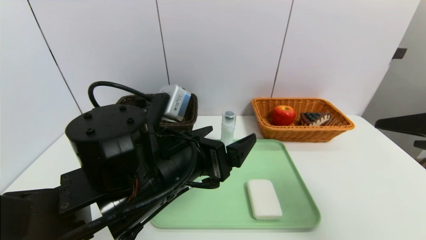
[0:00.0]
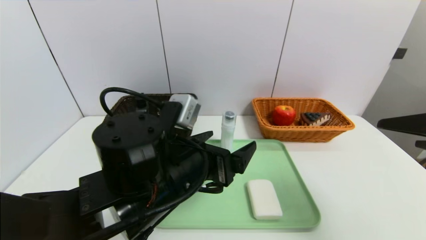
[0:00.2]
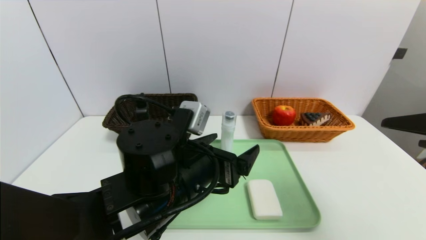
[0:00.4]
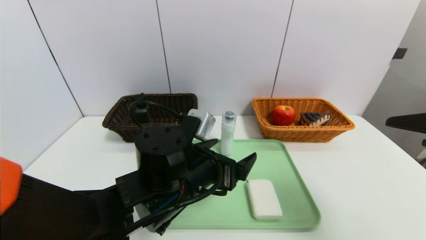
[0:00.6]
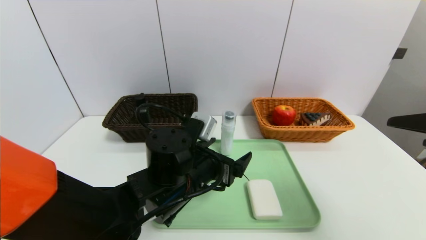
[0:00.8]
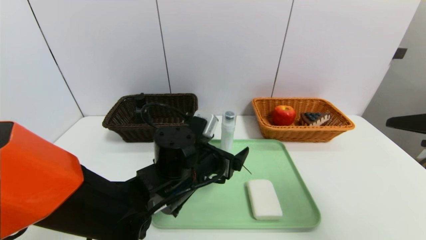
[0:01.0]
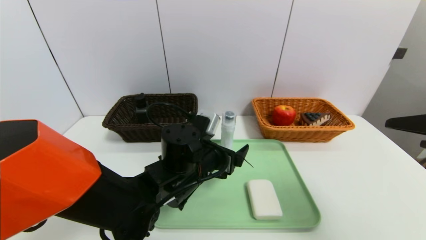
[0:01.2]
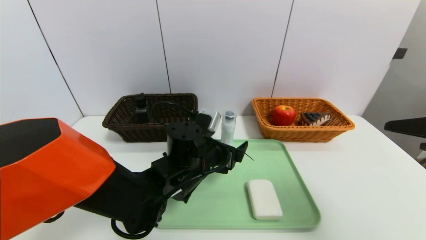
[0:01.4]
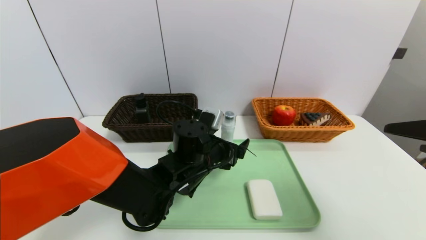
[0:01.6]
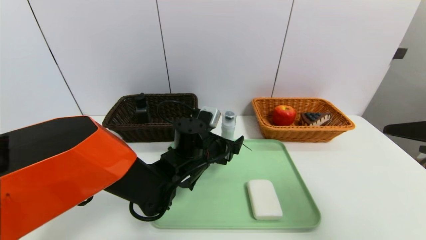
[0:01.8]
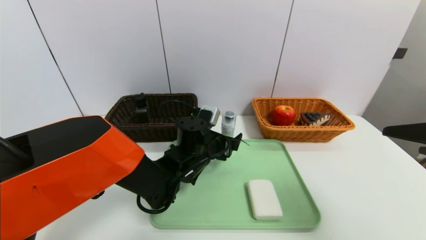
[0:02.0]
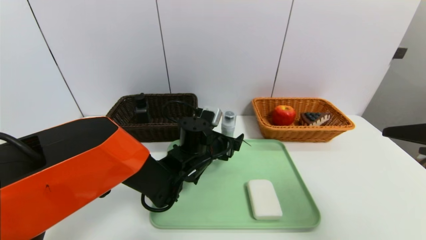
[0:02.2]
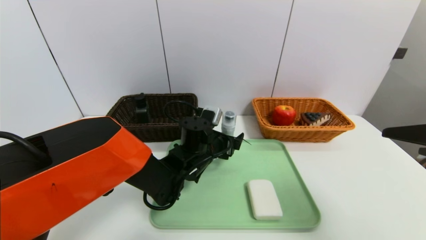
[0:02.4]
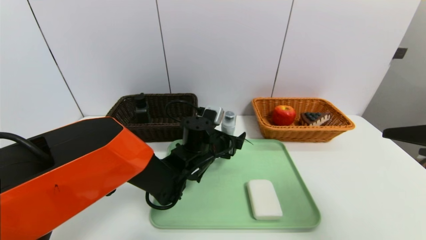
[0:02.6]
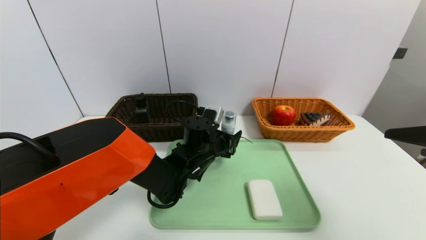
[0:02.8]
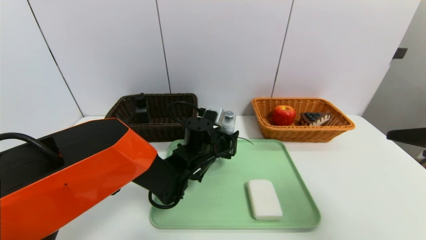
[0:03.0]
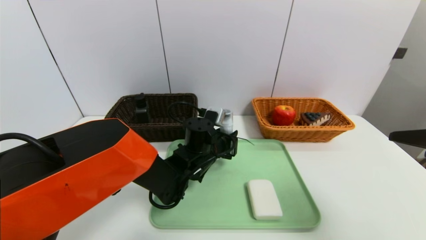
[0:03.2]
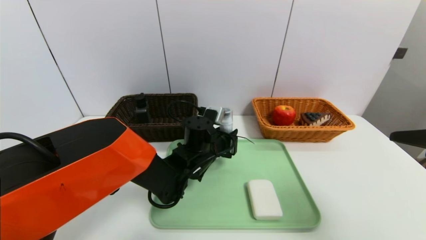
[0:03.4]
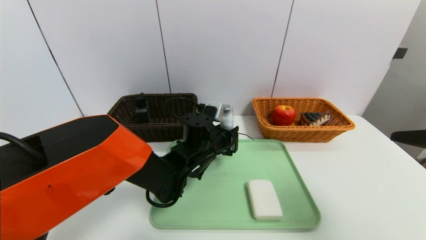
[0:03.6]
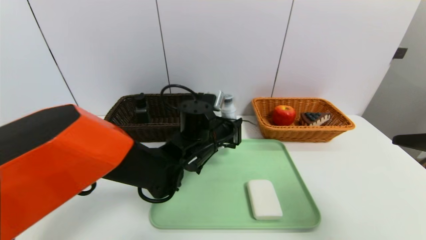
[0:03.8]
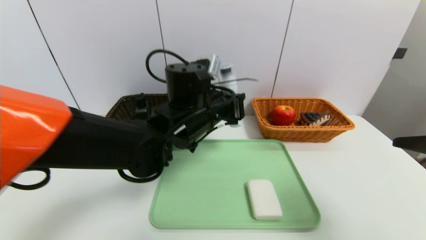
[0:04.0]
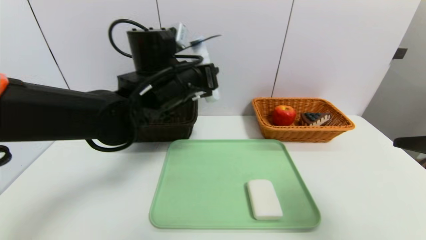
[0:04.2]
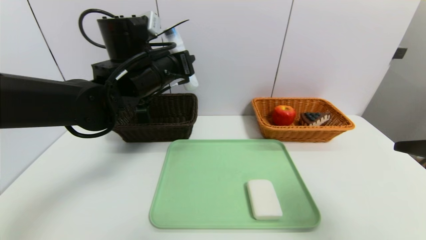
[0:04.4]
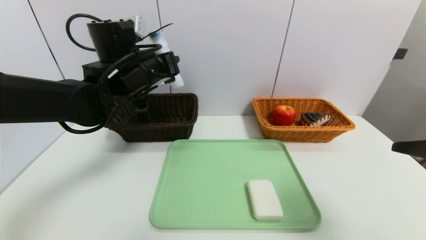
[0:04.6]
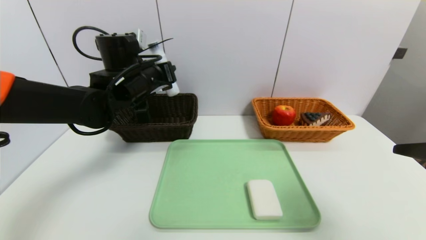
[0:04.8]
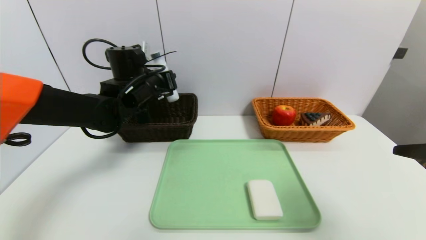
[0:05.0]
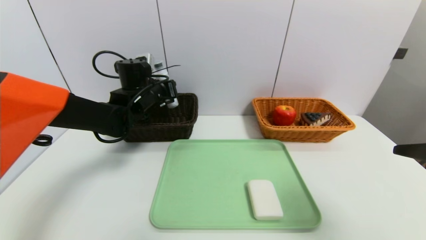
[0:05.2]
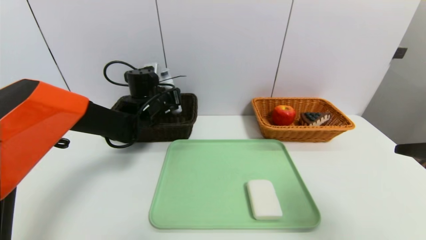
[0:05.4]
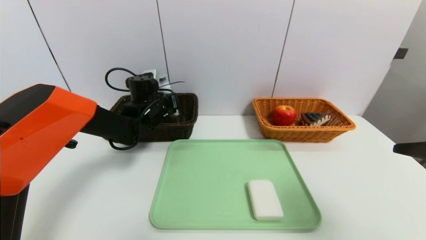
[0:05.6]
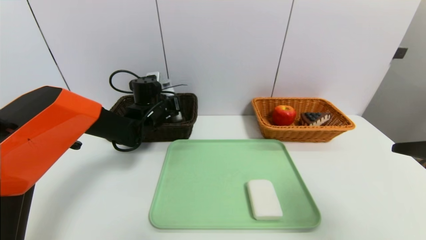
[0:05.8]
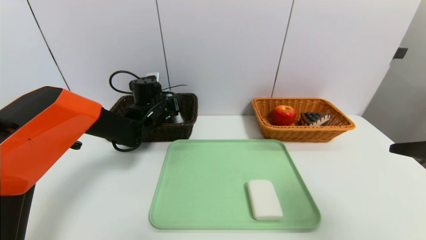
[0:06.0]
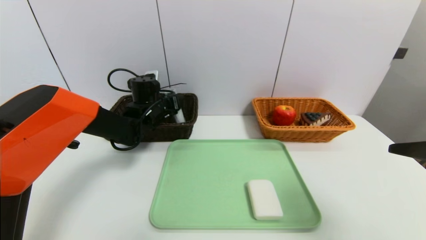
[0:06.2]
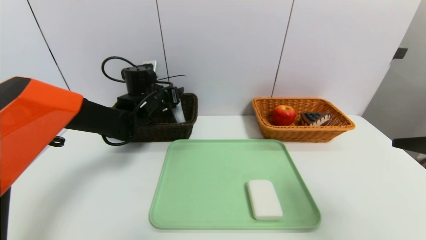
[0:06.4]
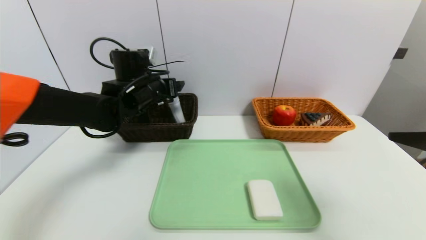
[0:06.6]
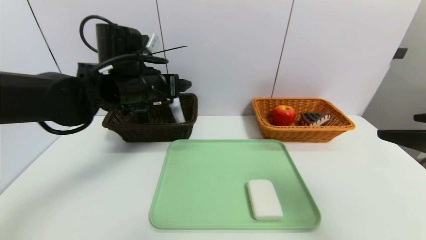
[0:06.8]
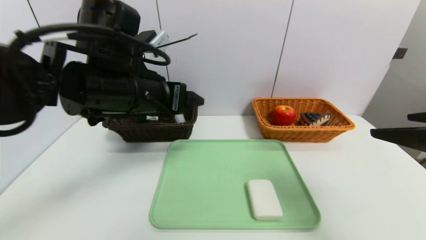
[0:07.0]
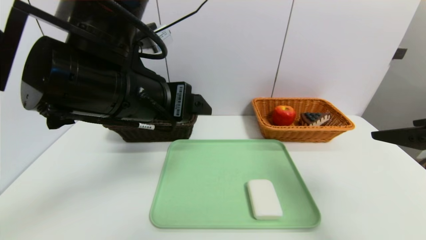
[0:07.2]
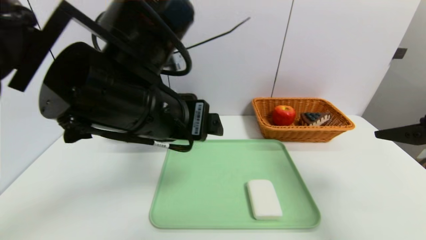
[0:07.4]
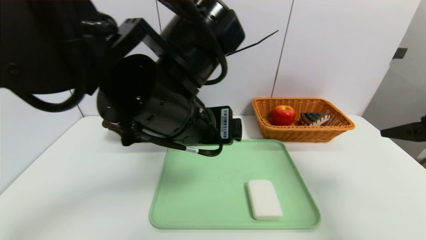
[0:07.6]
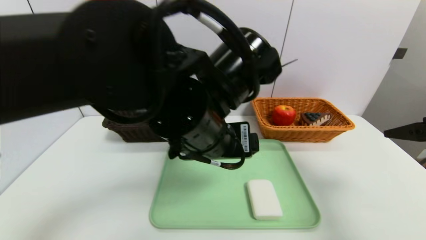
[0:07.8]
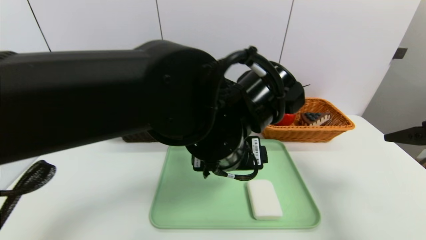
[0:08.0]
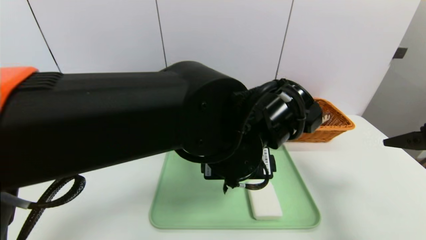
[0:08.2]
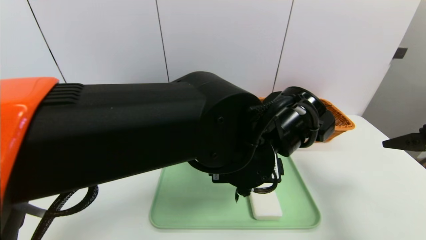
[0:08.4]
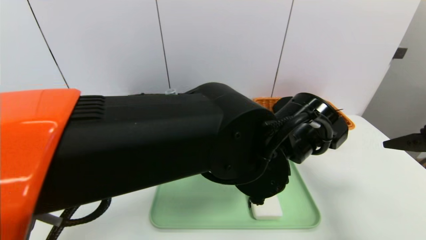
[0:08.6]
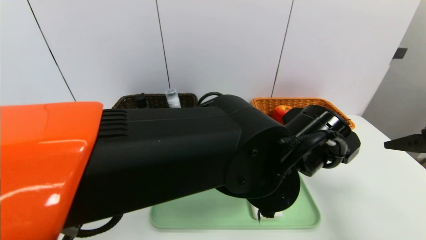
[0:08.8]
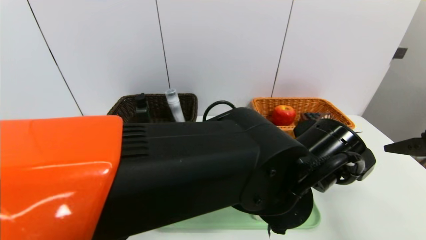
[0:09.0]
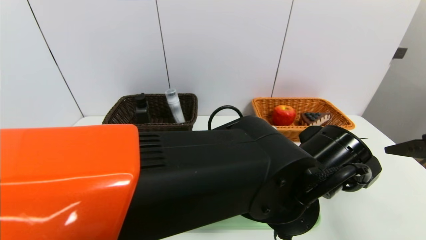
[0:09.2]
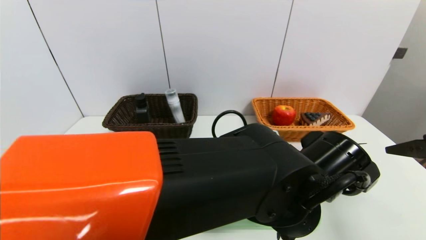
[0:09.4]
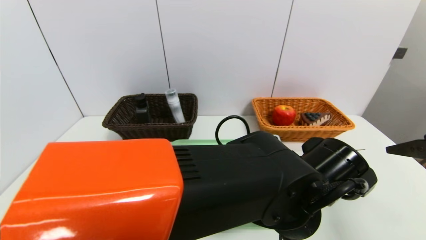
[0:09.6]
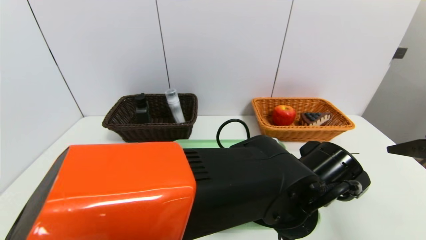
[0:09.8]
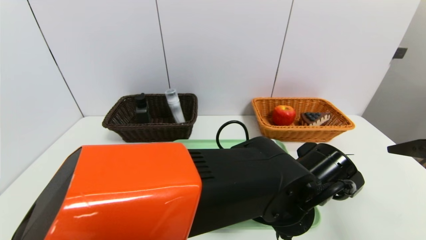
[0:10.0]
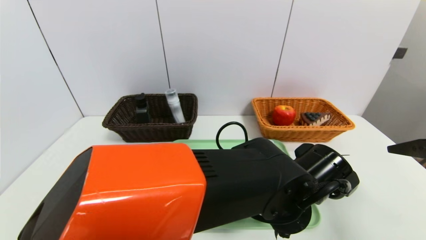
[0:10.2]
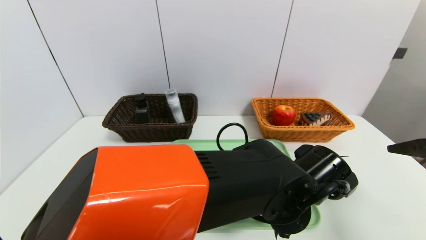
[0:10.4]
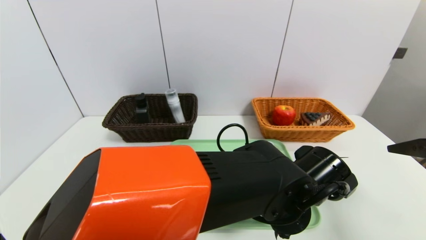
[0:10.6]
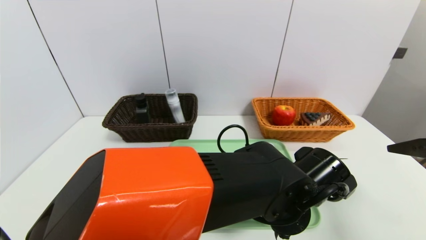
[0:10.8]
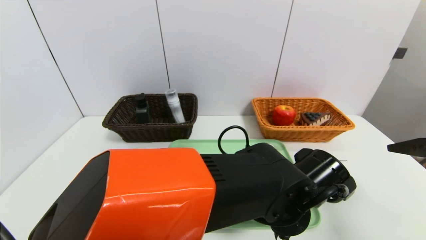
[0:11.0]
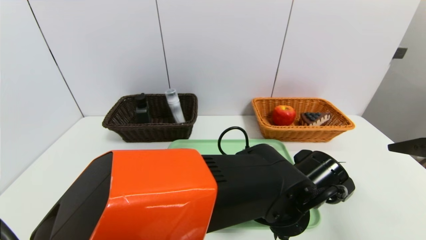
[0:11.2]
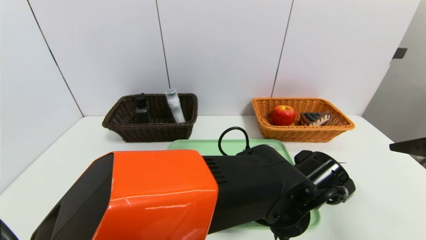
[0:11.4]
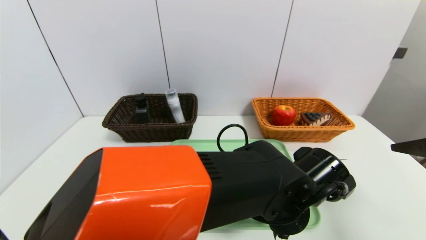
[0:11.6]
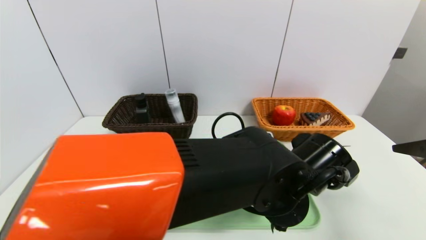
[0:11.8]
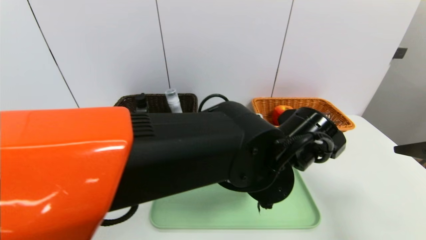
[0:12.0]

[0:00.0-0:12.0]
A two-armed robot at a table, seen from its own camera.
Task of the whole recording: place the food in the right basket with the right gripper, and place the non food items in the left basket with the left gripper.
Step, 0:00.0 to 0:06.8: Grasp the washing liquid and put it in the left basket.
0:00.0 to 0:01.6: The left gripper heads forward and downward, covering about 15 cm.
0:01.6 to 0:03.0: The left gripper changes place by roughly 5 cm, and closes.
0:03.0 to 0:04.4: The left gripper goes approximately 20 cm upward and to the left.
0:04.4 to 0:06.0: The left gripper goes some 15 cm downward and forward, and opens up.
0:06.0 to 0:07.6: The right gripper travels forward by approximately 10 cm; the left gripper heads backward, upward and to the right, covering roughly 30 cm, and opens up.
0:07.6 to 0:09.0: The left gripper moves to the right and downward, roughly 15 cm.
0:09.0 to 0:10.4: The left gripper heads downward, covering roughly 5 cm.
0:10.4 to 0:12.0: The left gripper goes about 5 cm upward, and closes its fingers.

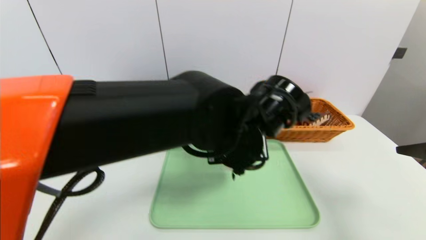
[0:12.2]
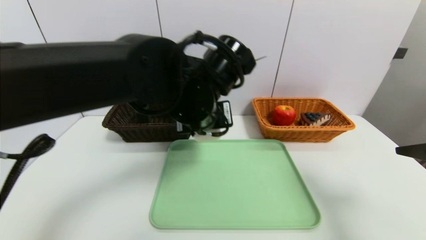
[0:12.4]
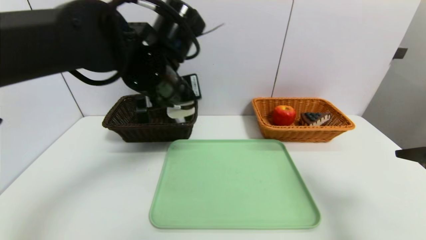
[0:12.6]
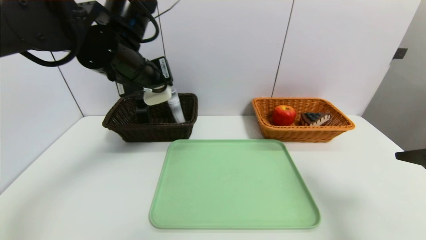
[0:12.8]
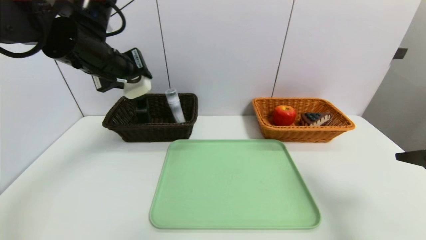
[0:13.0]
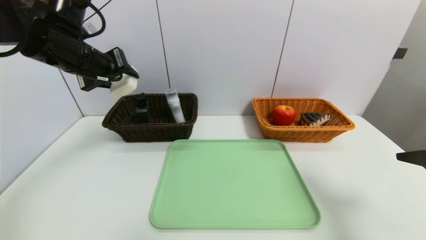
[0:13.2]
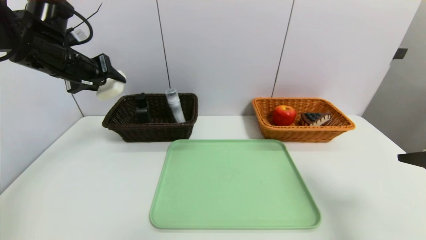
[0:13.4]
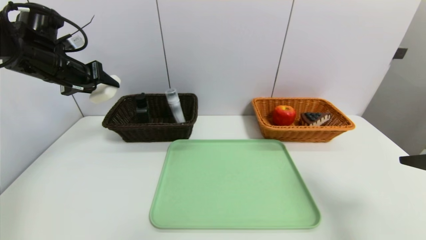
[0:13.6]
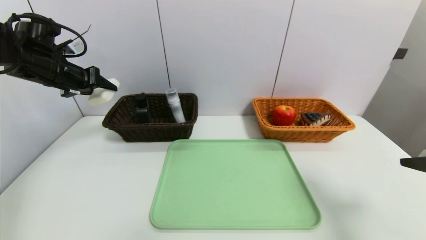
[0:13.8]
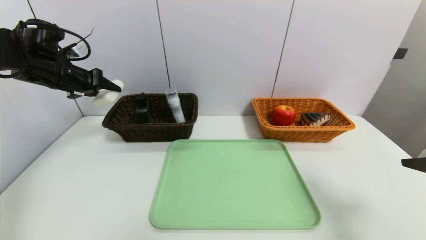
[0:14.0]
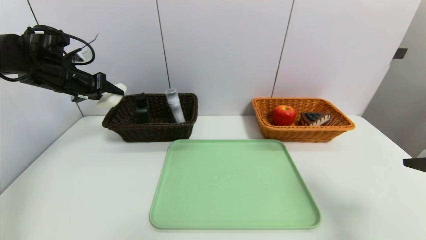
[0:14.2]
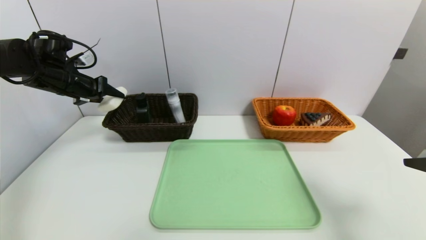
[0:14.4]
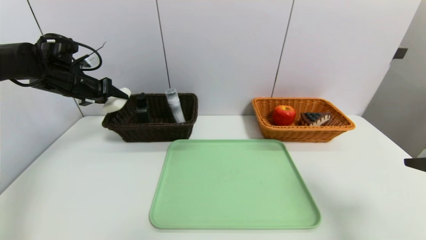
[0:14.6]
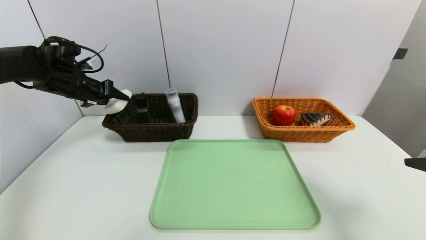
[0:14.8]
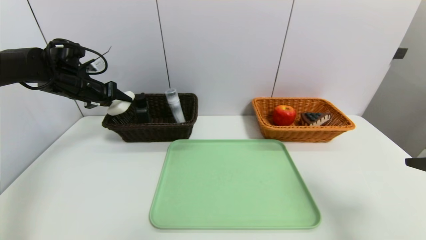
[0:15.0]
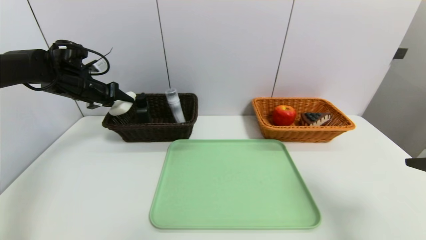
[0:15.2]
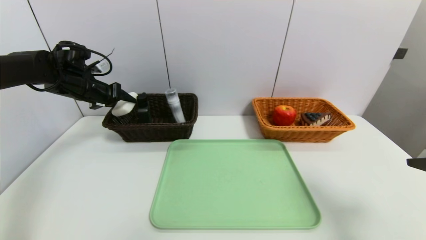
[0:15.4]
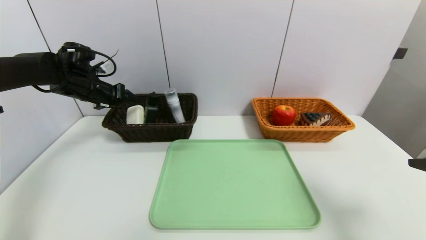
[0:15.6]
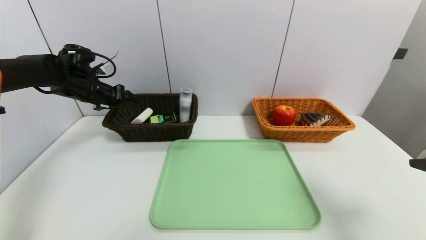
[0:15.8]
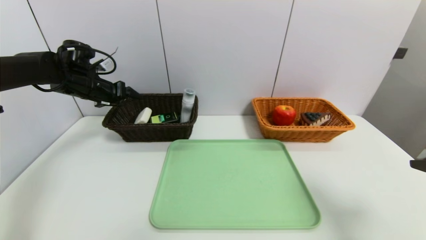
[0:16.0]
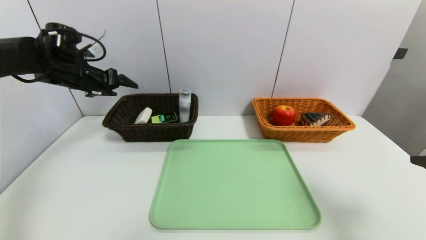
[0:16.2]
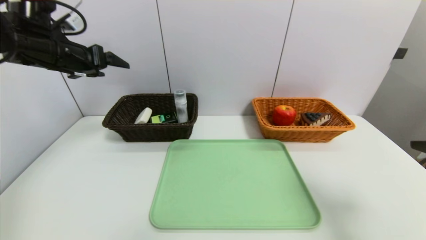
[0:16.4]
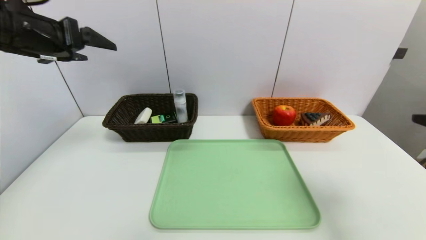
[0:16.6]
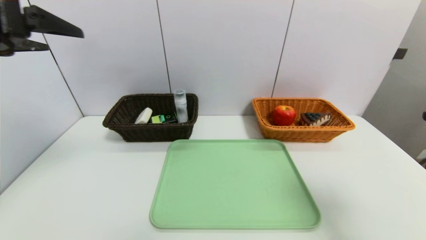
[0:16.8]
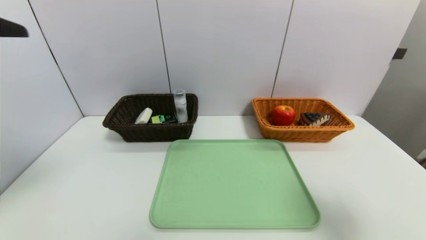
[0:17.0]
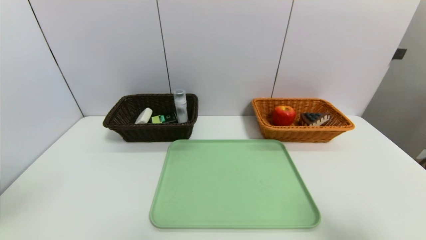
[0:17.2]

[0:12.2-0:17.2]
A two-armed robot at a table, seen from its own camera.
Task of the whole recording: place the food in the right basket with the right gripper, and place the non food items in the left basket with the left gripper.
Step, 0:12.2 to 0:16.2: Grasp the soap and put it in the left basket.
0:12.2 to 0:13.8: The left gripper is displaced to the left by some 35 cm.
0:13.8 to 0:15.6: The left gripper goes some 10 cm downward and forward.
0:15.6 to 0:17.2: The left gripper is displaced backward by about 40 cm, and opens its fingers, while the right gripper moves backward, some 10 cm.
